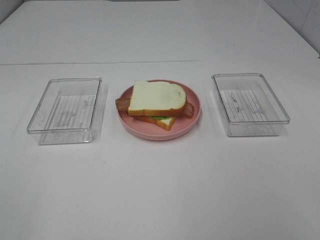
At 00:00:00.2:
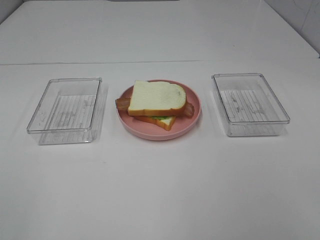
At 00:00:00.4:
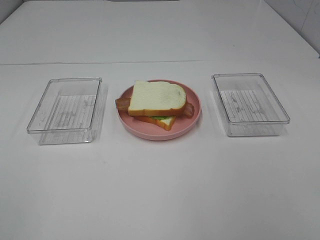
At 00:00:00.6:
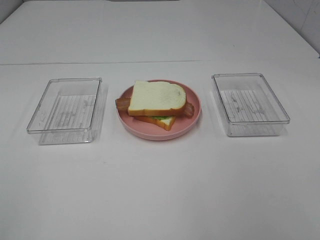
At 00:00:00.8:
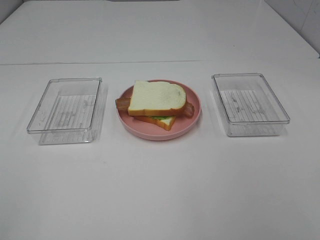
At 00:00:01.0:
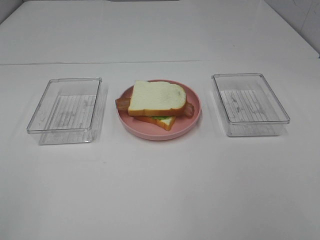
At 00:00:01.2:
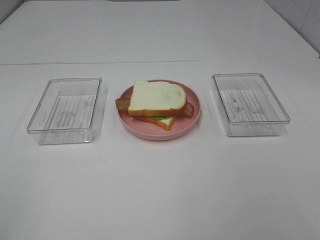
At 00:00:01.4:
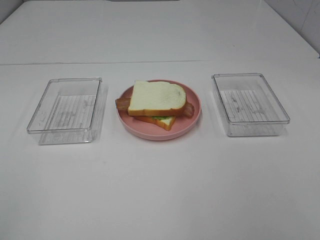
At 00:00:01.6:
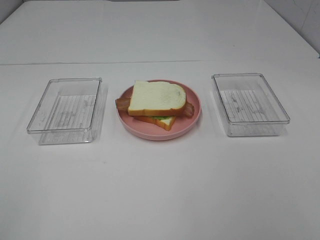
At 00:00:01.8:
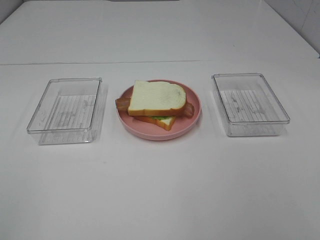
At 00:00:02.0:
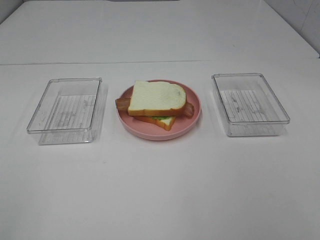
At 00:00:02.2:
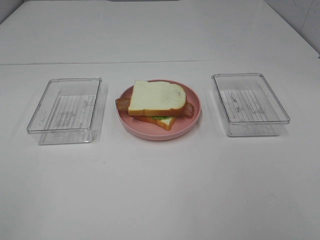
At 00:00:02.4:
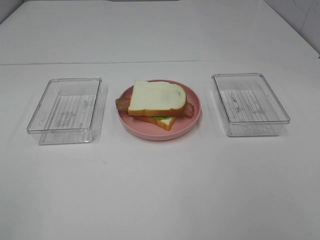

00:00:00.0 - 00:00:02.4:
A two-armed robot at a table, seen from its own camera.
Task of the whole recording: Make sandwiches.
00:00:01.2 - 00:00:02.4: Neither gripper changes place.
